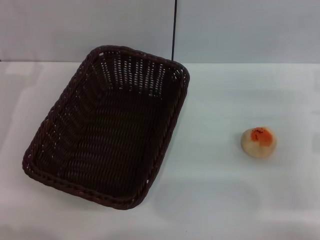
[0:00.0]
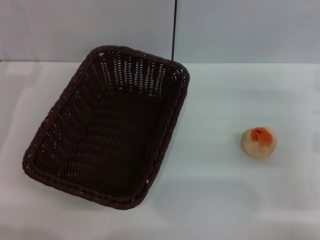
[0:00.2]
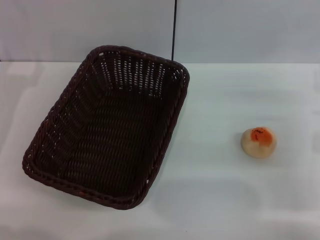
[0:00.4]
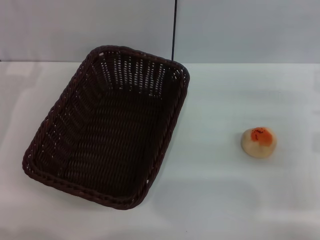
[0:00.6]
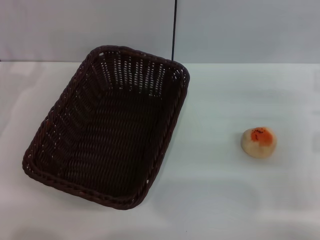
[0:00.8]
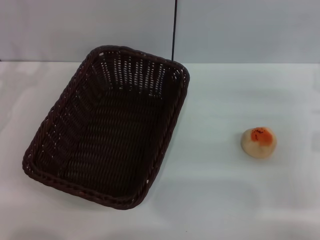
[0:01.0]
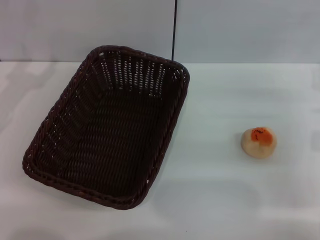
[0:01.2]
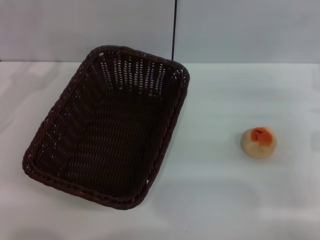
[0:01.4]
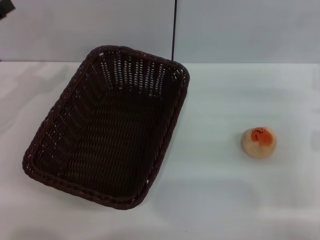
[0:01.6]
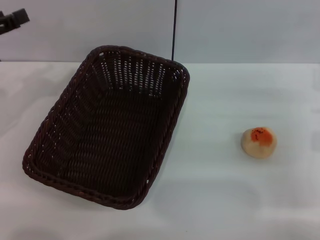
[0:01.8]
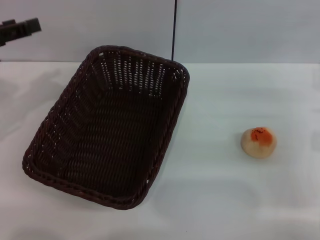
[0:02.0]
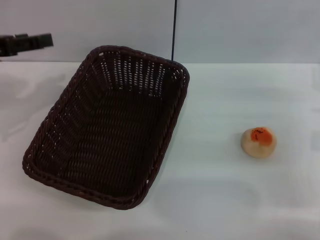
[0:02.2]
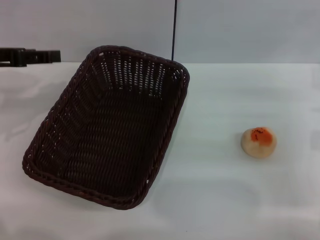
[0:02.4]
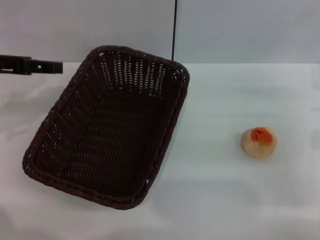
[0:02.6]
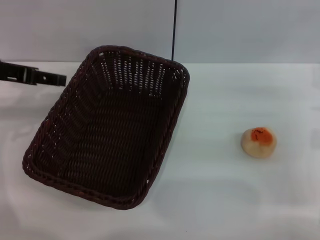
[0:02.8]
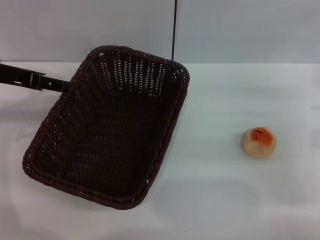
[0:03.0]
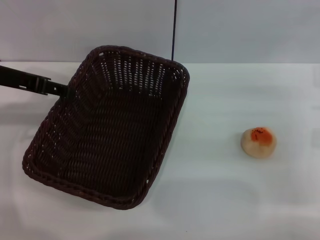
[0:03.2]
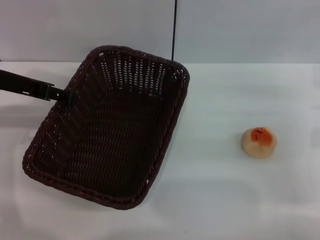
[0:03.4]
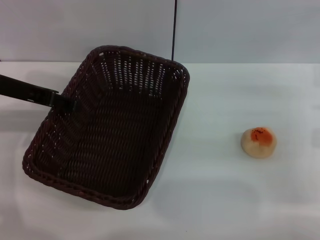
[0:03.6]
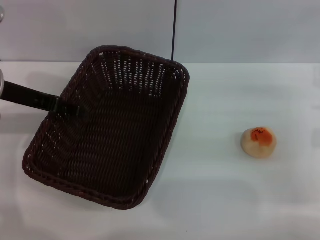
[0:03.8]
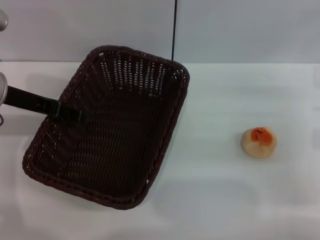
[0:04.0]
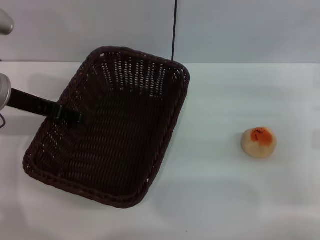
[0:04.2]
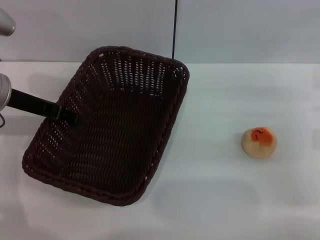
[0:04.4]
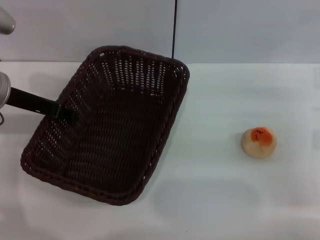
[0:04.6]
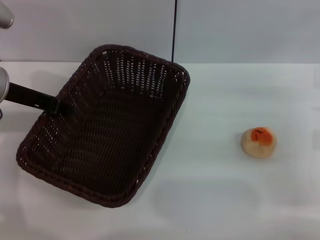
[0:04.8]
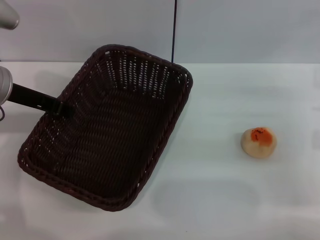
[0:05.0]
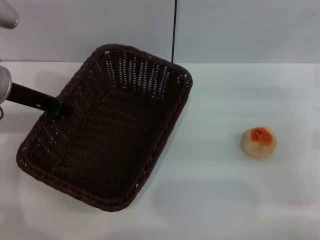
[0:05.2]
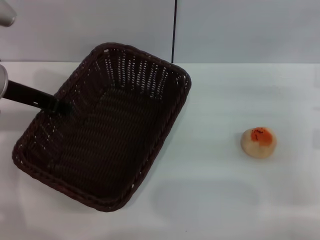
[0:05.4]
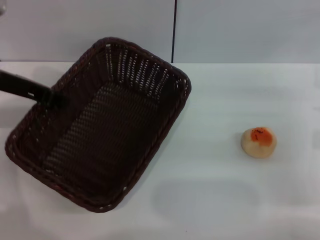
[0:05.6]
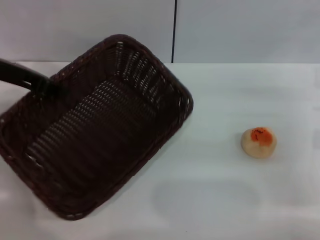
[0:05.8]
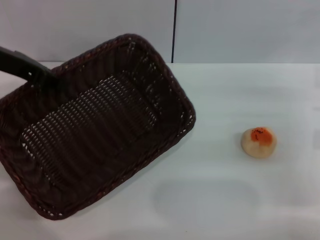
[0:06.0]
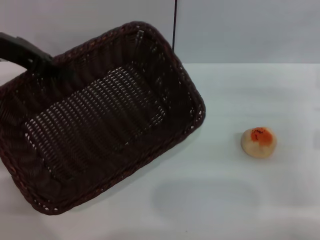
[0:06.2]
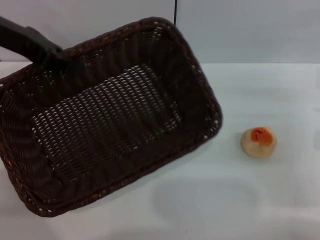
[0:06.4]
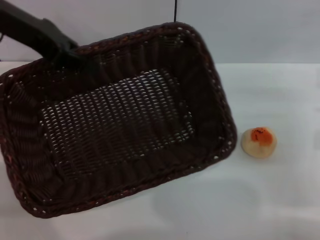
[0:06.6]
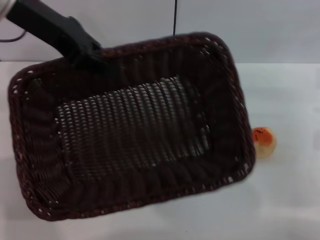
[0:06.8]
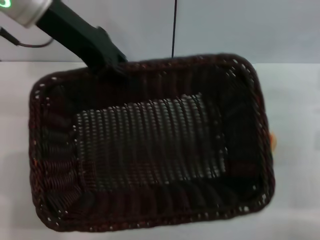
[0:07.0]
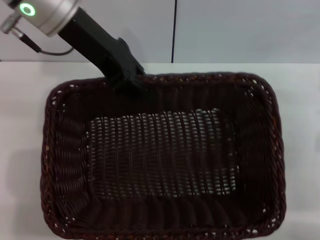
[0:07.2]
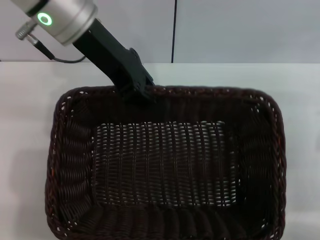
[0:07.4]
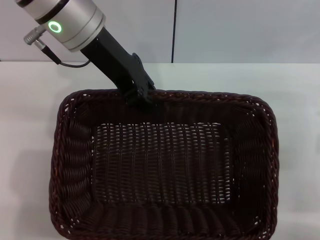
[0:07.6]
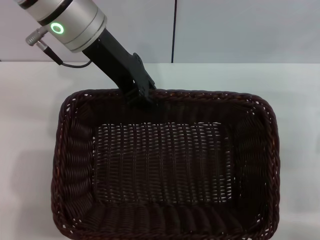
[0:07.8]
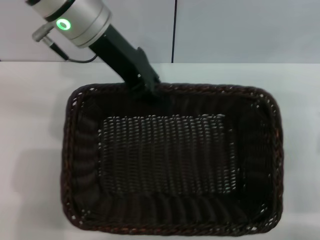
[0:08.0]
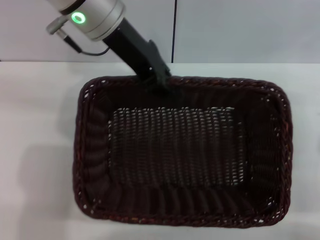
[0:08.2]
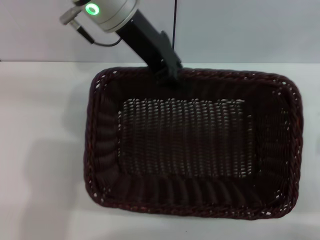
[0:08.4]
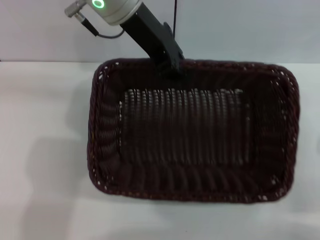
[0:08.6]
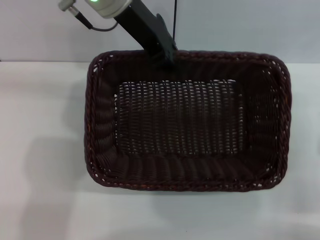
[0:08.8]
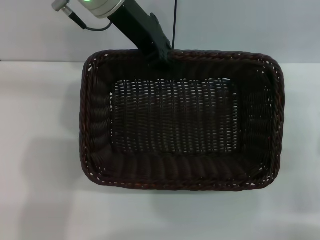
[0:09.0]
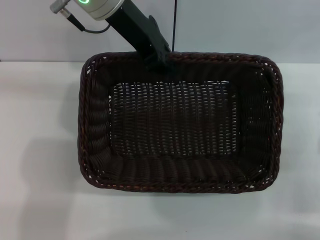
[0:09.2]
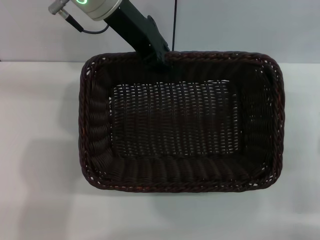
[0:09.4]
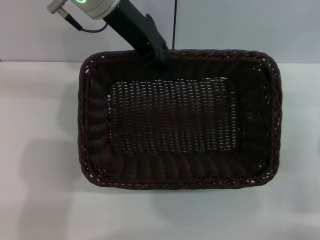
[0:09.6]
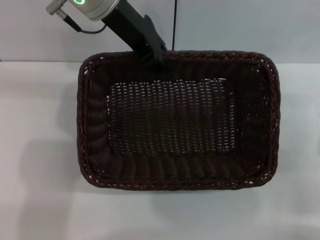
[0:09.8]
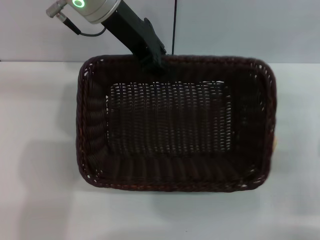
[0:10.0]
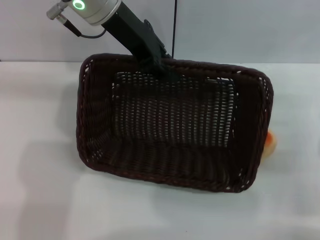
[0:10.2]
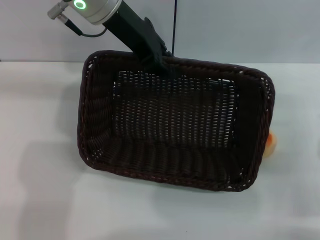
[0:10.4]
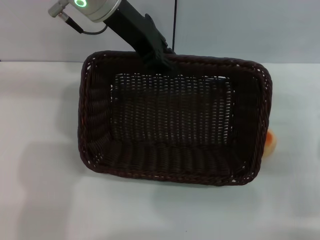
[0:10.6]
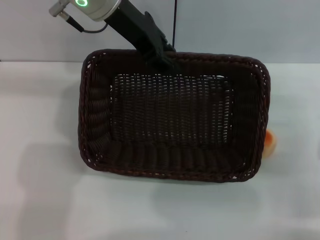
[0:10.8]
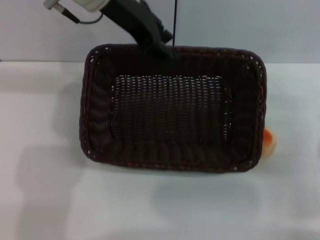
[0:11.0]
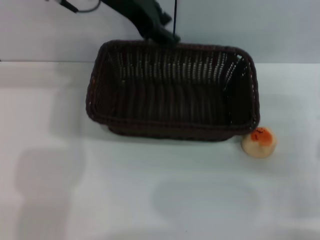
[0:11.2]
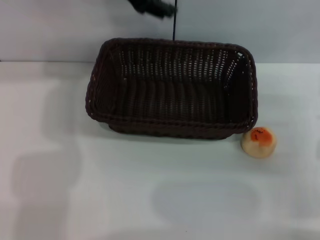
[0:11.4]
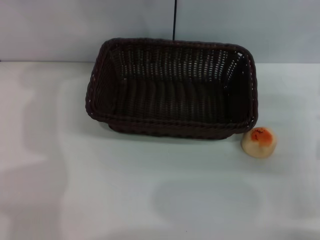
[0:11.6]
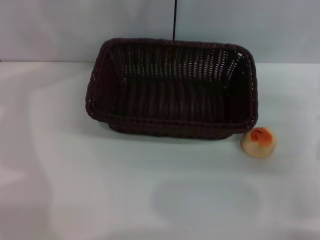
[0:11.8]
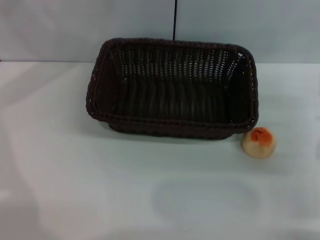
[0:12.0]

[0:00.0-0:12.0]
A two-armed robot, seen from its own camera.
Step, 0:00.0 to 0:11.2: Move the basket to the center of view with the left gripper.
0:01.6 to 0:03.0: The left gripper travels to the right by roughly 5 cm.
0:03.0 to 0:04.4: The left gripper shifts by approximately 5 cm.
0:04.4 to 0:06.0: The left gripper heads upward, covering about 5 cm, and closes its fingers.
0:06.0 to 0:07.6: The left gripper moves to the right, about 15 cm.
0:09.0 to 0:10.4: Neither gripper changes place.
0:10.4 to 0:12.0: The left gripper heads to the left, covering roughly 15 cm.

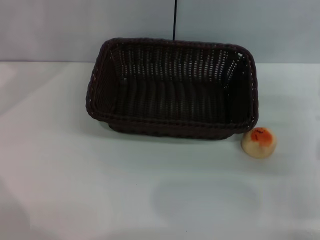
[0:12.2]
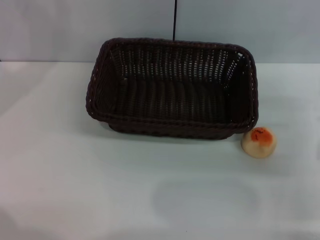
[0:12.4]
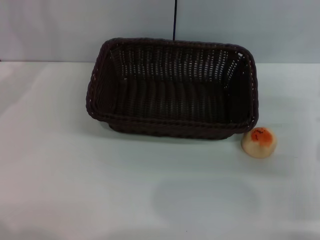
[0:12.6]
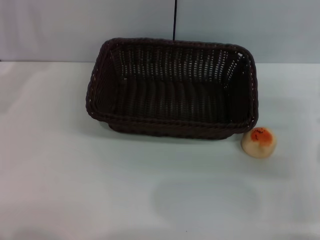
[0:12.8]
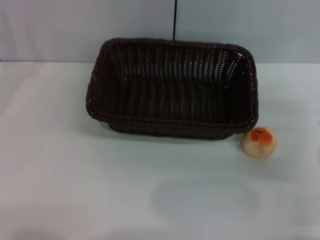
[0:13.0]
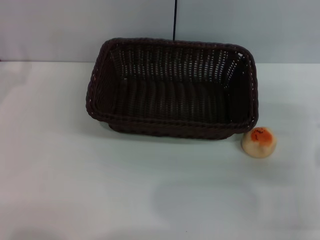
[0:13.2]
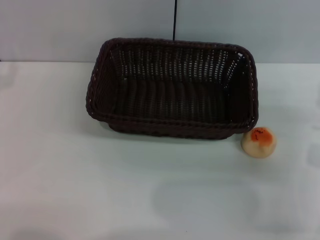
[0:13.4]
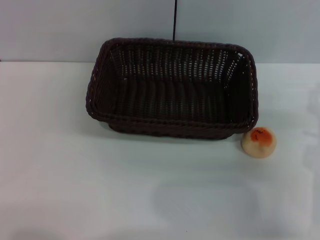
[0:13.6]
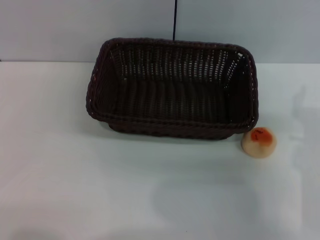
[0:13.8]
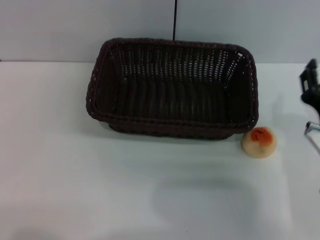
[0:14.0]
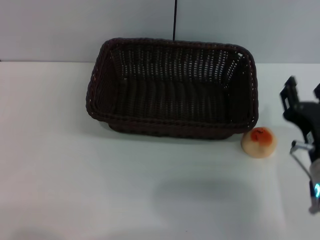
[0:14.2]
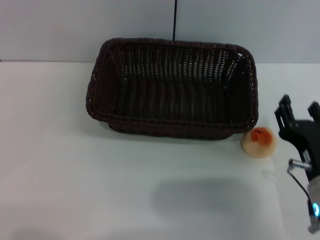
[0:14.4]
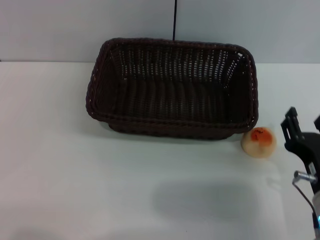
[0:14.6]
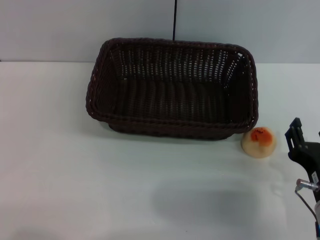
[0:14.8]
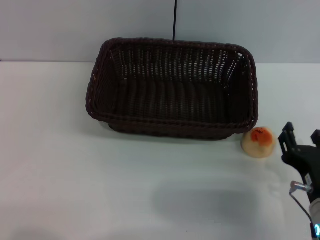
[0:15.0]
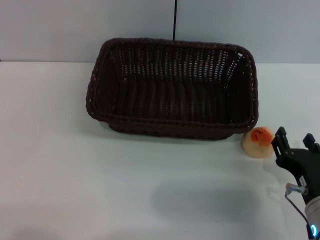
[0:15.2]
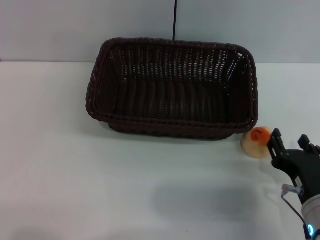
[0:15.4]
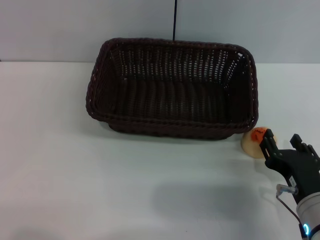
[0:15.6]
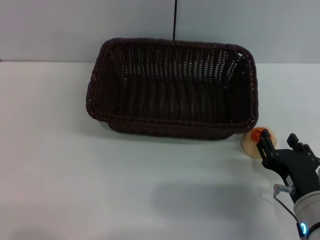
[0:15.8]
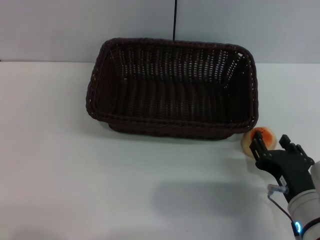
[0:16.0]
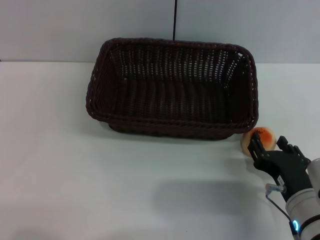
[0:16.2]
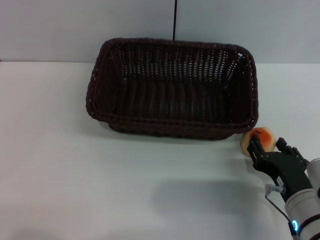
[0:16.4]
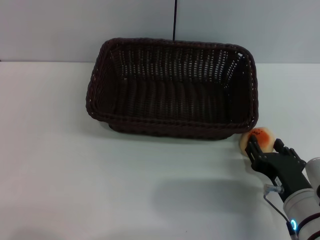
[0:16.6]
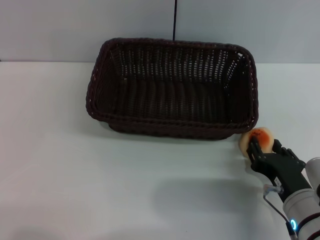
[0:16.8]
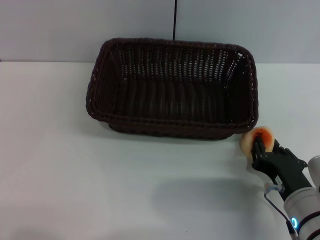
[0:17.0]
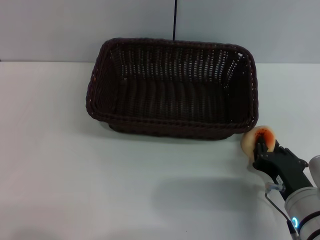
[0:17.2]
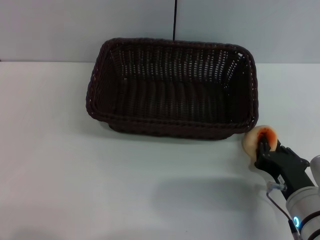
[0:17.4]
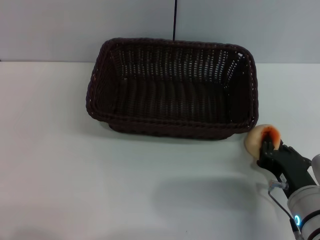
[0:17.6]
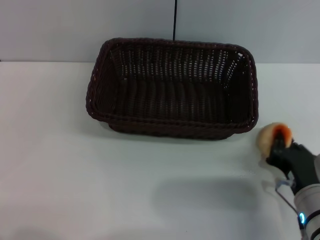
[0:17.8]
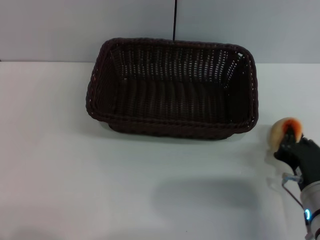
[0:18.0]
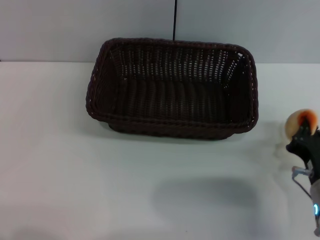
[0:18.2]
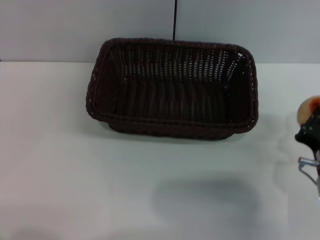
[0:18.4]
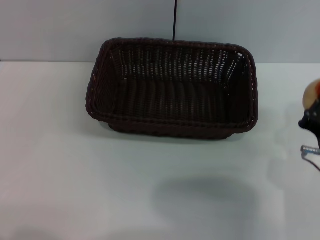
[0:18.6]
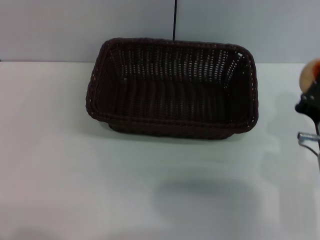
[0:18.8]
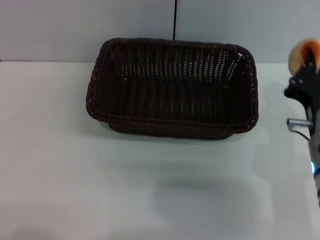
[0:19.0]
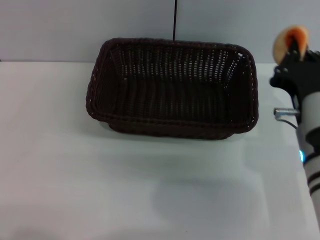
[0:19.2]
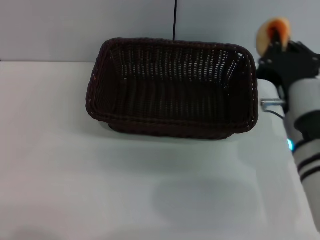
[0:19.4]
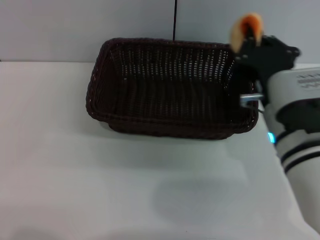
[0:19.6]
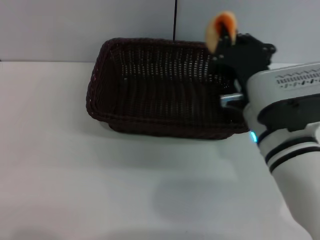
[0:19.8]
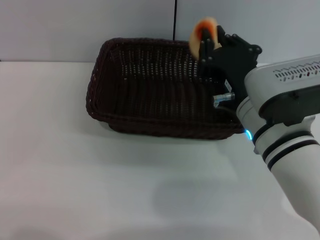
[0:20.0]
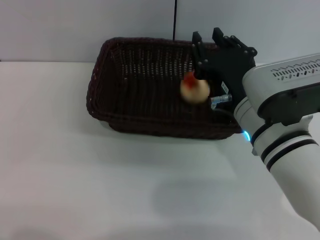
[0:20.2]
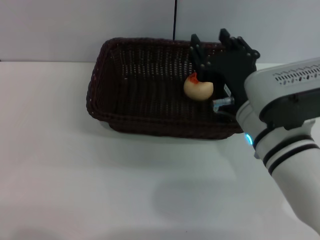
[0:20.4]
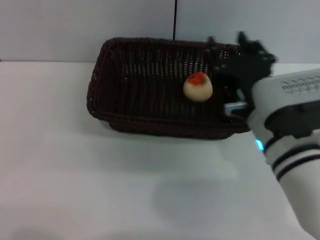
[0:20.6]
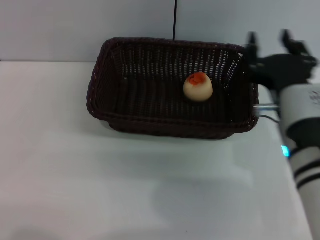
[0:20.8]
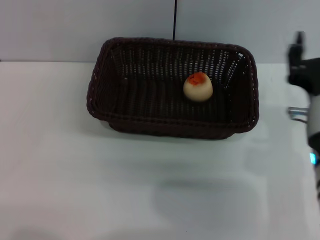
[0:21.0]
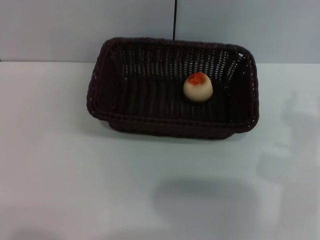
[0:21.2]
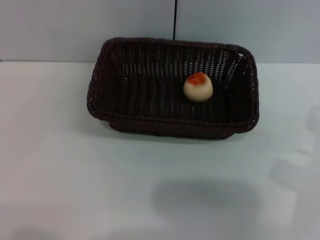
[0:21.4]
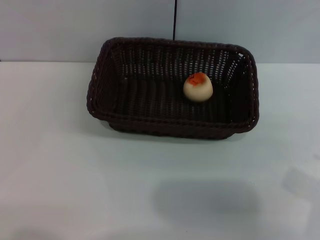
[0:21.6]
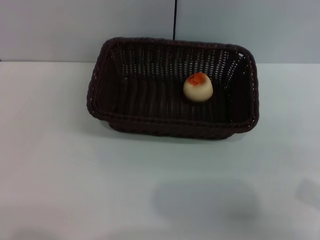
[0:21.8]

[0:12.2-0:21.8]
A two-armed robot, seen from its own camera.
Step, 0:12.2 to 0:18.0: Pick up the egg yolk pastry with the right gripper.
Step, 0:18.2 to 0:20.2: Place the egg yolk pastry into the basket with the right gripper.
0:12.2 to 0:13.8: The right gripper heads to the left, covering some 5 cm.
0:13.8 to 0:15.4: The right gripper travels backward by about 5 cm.
0:15.4 to 0:17.0: The grippers move only a little.
0:17.0 to 0:18.6: The right gripper shifts approximately 5 cm upward, and closes.
0:18.6 to 0:20.2: The right gripper moves to the left and forward, approximately 10 cm.
0:20.2 to 0:21.8: The right gripper travels to the right and backward by roughly 15 cm, and opens its fingers.

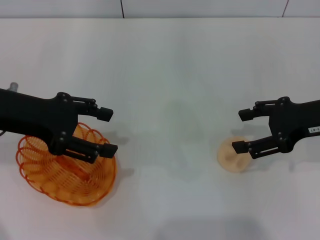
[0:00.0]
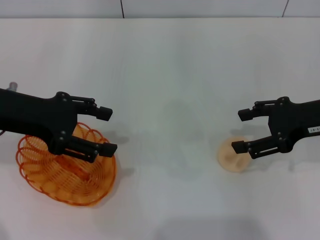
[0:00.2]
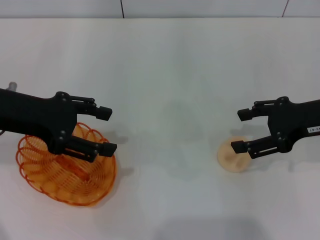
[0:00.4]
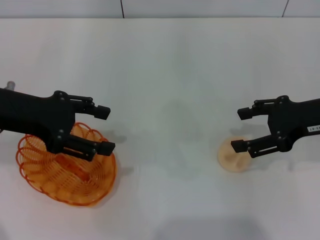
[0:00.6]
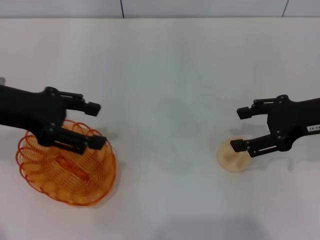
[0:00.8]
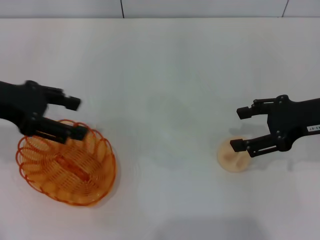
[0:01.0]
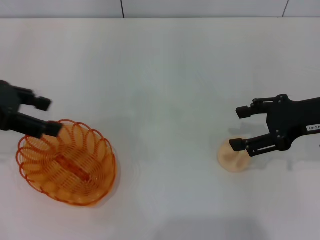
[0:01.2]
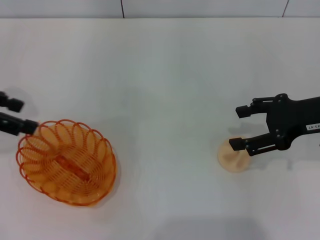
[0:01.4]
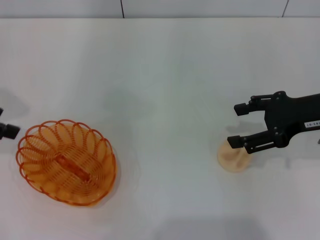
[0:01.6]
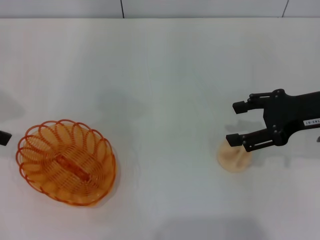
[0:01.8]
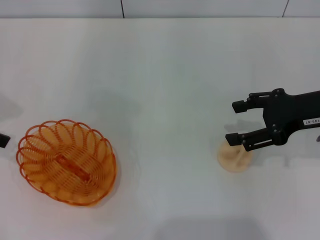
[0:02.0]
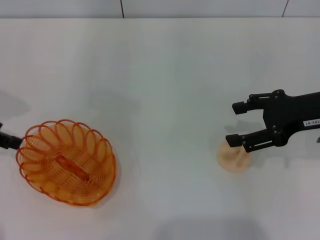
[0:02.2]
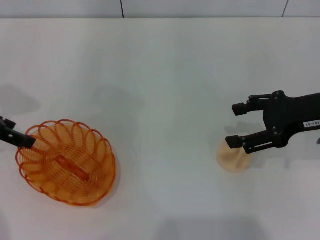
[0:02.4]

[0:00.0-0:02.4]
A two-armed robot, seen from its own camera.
0:00.0 to 0:01.2: The left gripper is displaced to the left by approximately 5 cm.
